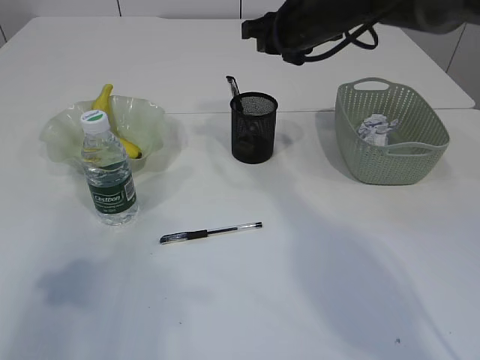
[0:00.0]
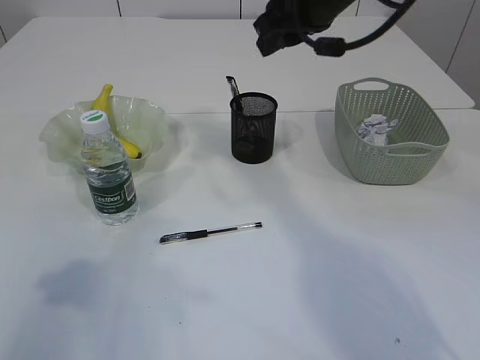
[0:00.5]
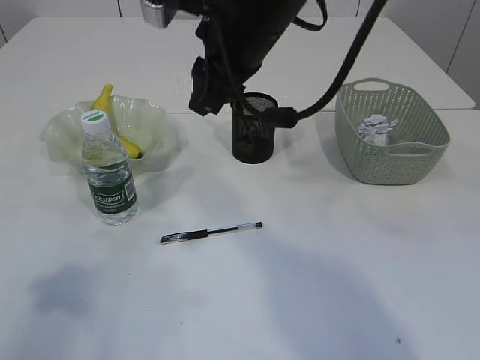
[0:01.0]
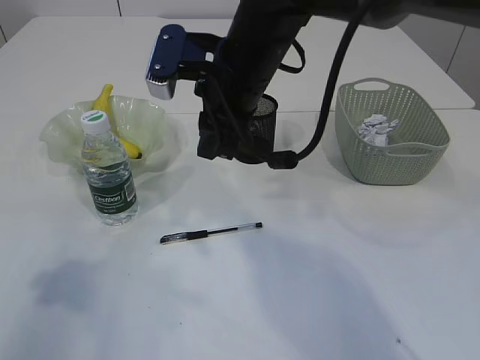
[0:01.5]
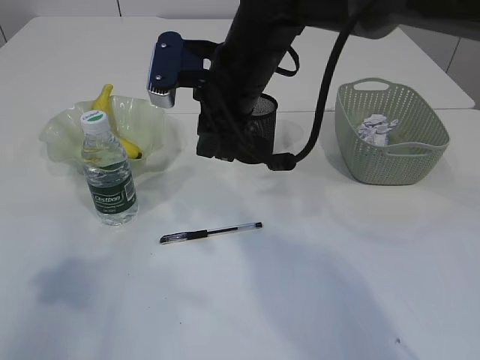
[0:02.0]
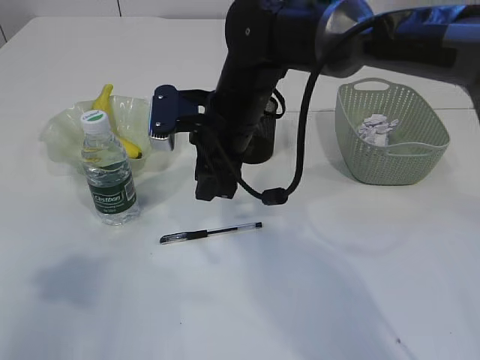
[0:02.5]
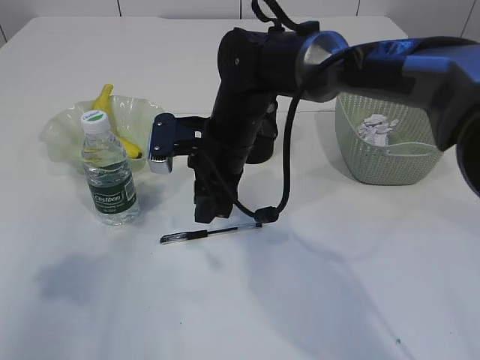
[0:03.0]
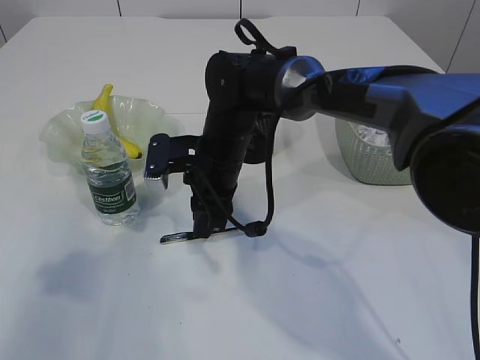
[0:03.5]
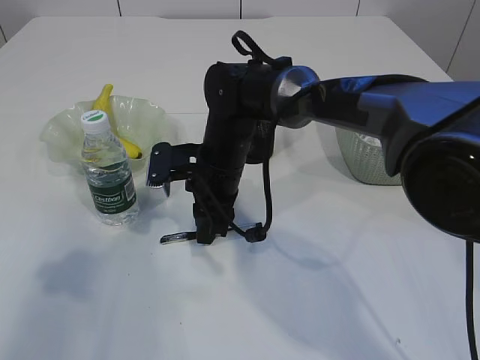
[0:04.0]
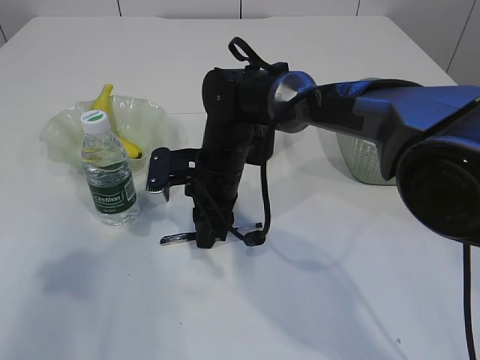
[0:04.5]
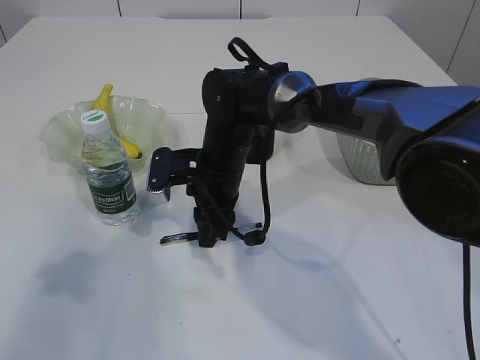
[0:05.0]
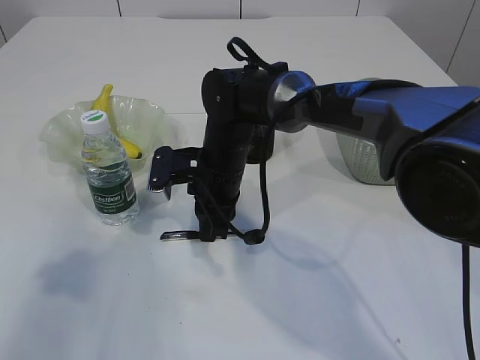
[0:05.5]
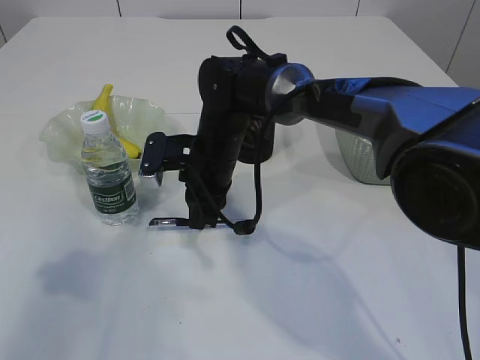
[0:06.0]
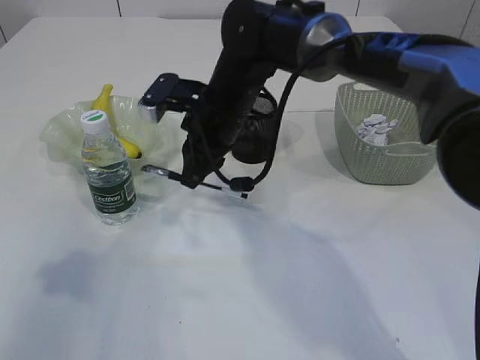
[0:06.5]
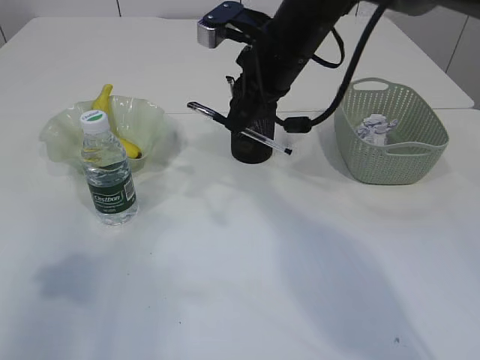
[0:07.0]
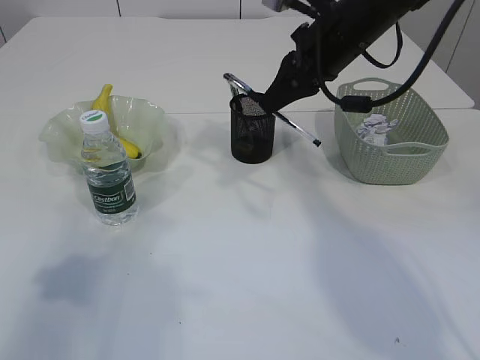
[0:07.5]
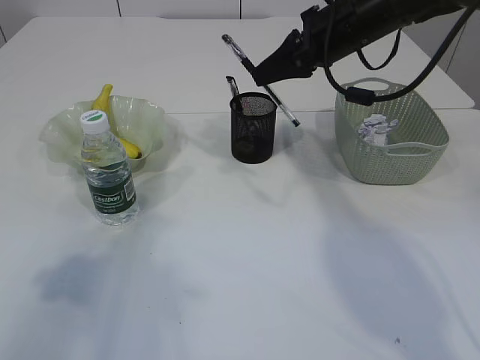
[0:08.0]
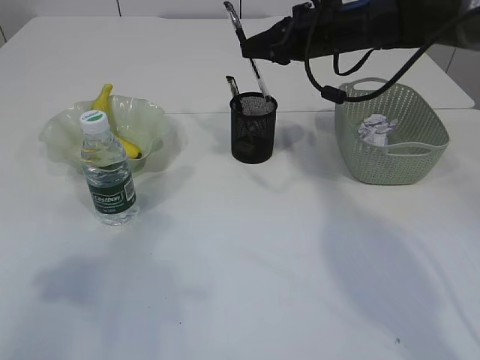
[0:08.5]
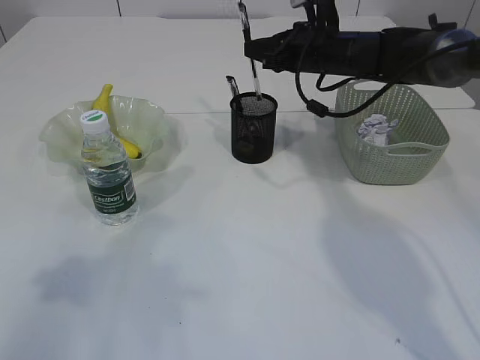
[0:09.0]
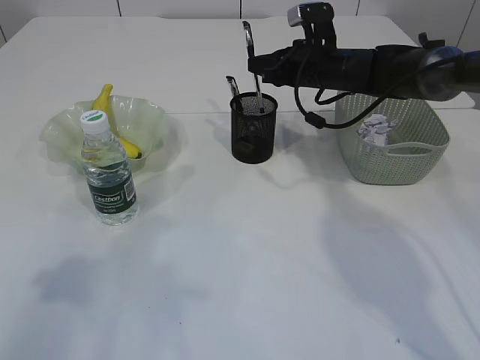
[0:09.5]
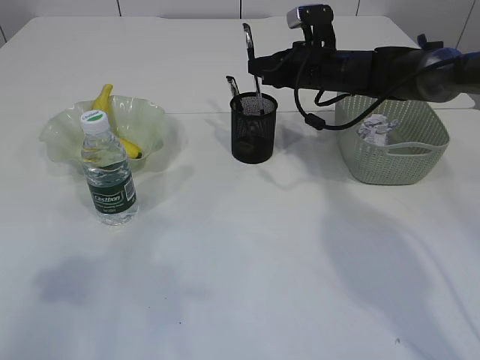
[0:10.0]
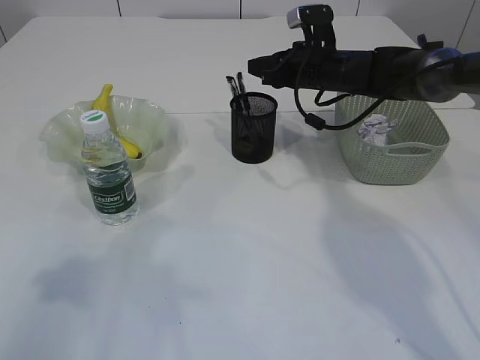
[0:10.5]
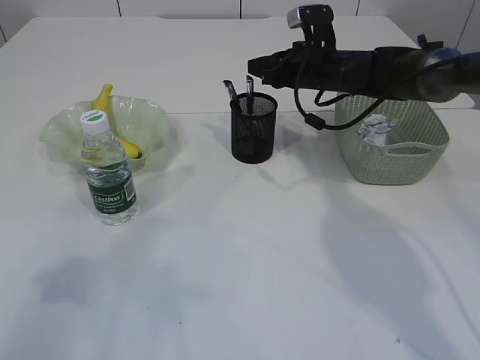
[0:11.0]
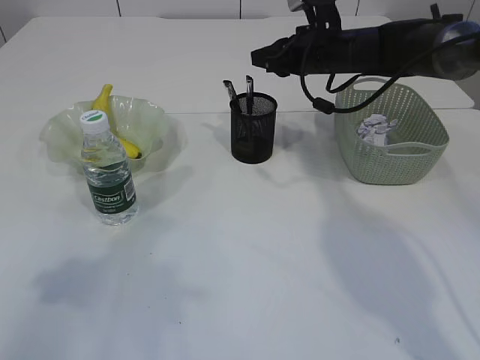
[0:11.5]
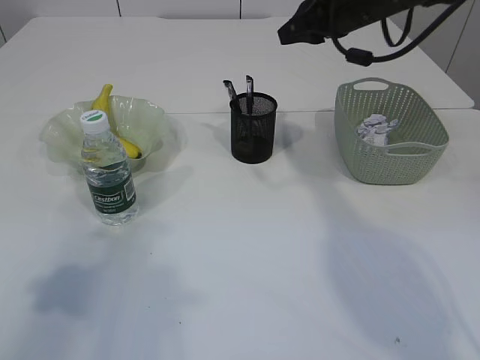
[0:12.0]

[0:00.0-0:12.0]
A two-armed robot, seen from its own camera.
Step, 0:00.0 to 0:06.5: Pick up the pen with right arm.
Step, 0:07.0 to 0:11.5: Place the pen into the pen holder.
0:00.0 to 0:02.0: The right gripper travels backward and to the left by approximately 15 cm.
0:02.0 to 0:04.0: The right gripper shifts roughly 10 cm downward.
0:04.0 to 0:06.0: The right gripper closes its fingers.
0:06.0 to 0:08.0: The right gripper moves to the right and upward, some 20 cm.
0:08.0 to 0:10.0: The right gripper shifts roughly 15 cm downward and forward.
0:10.0 to 0:12.0: The right gripper shifts roughly 10 cm upward.

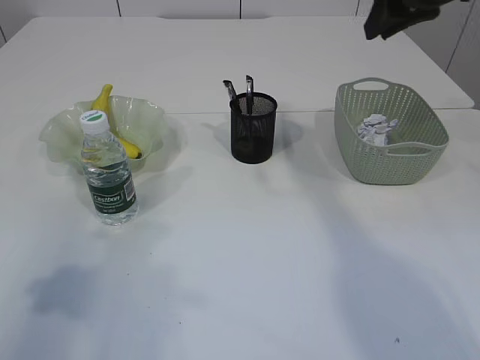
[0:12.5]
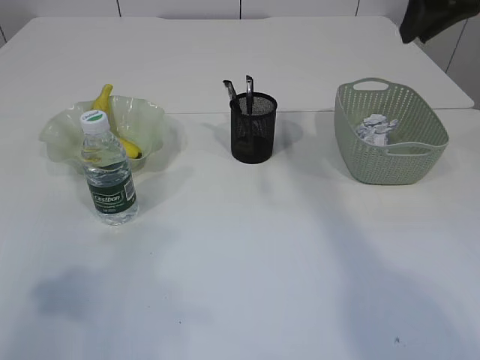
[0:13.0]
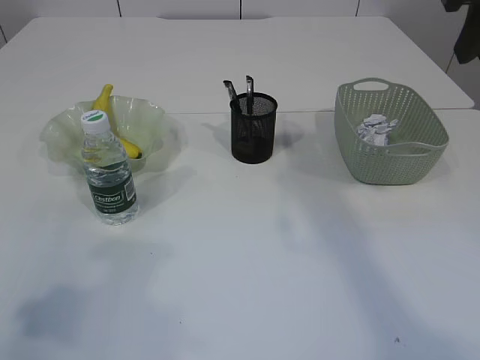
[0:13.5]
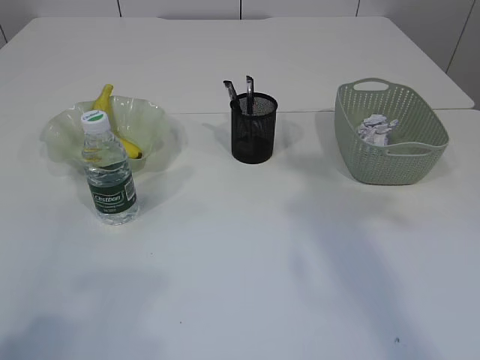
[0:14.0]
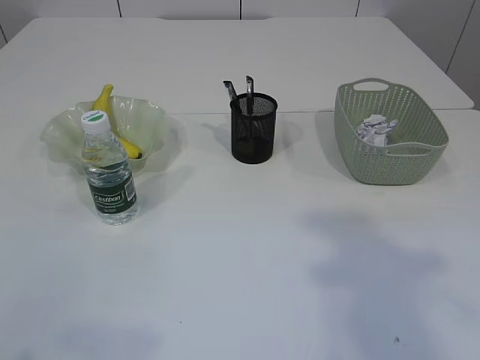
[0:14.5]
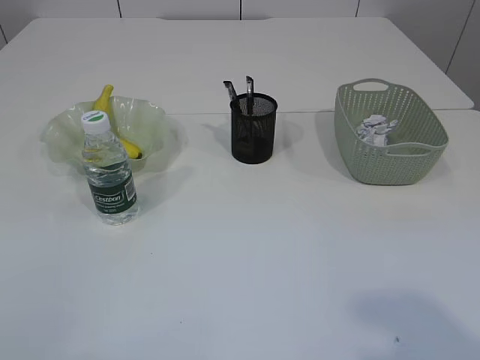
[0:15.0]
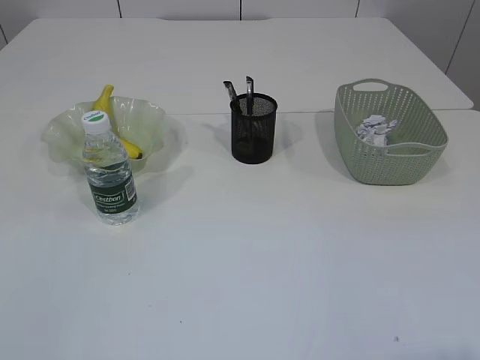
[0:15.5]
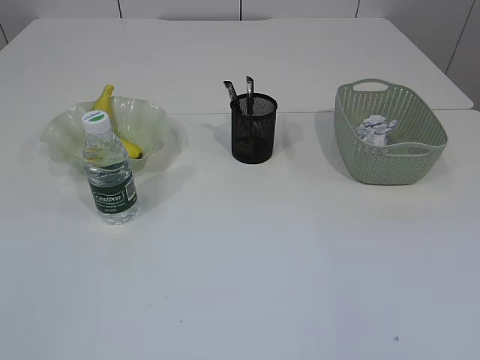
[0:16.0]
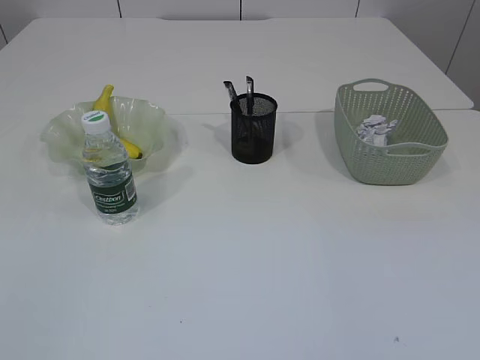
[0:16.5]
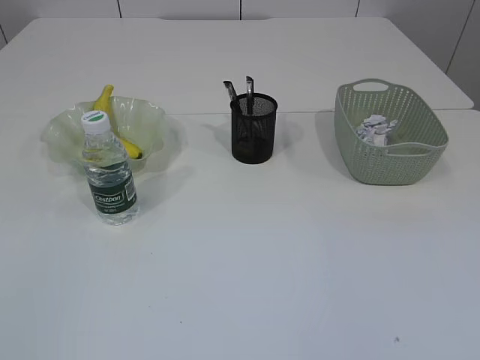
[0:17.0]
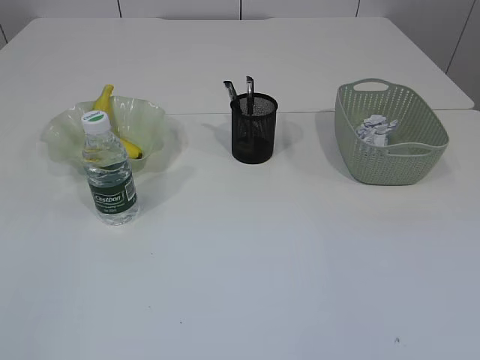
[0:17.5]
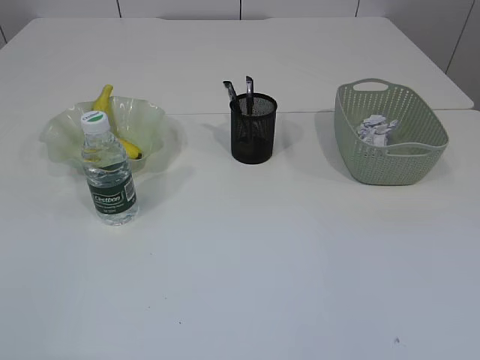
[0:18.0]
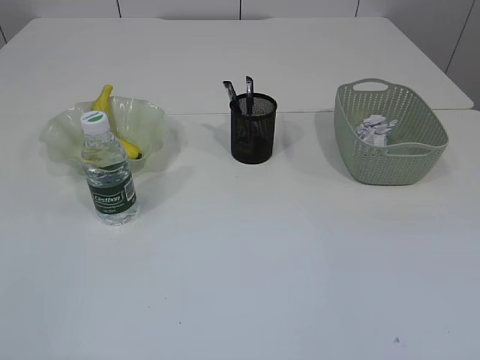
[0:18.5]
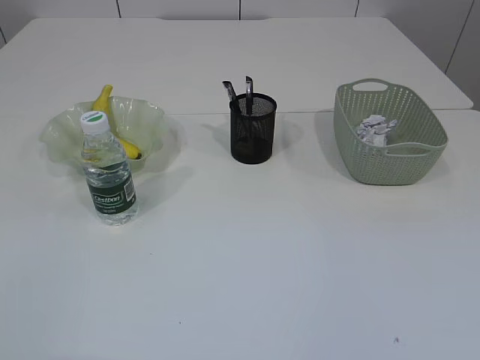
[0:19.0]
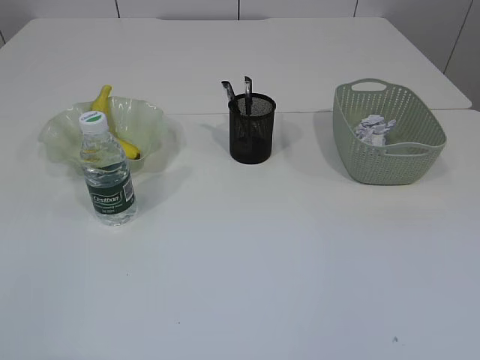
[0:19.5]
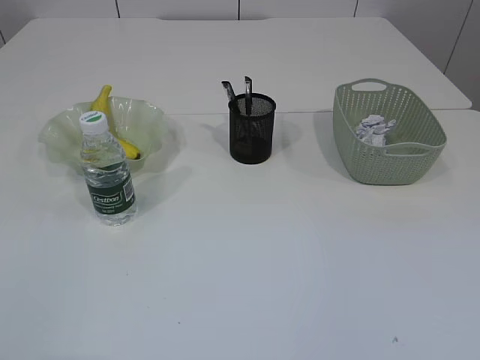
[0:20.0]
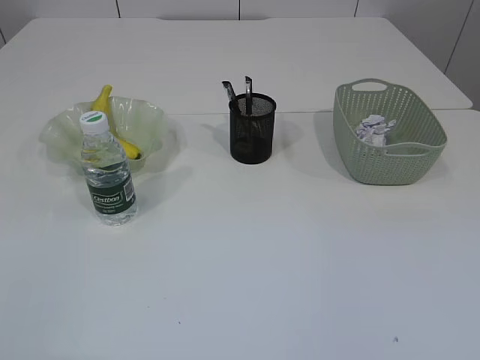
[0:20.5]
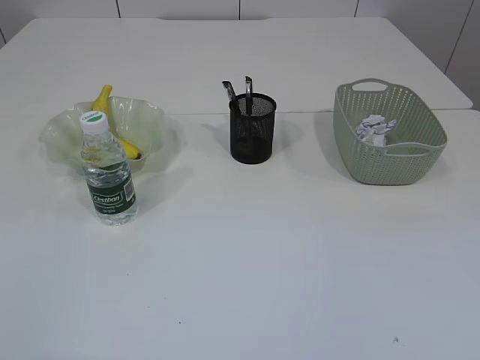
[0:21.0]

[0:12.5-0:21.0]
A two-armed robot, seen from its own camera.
0:12.5 to 0:14.5: The right gripper heads backward, covering approximately 30 cm, while the left gripper travels backward by some 15 cm.

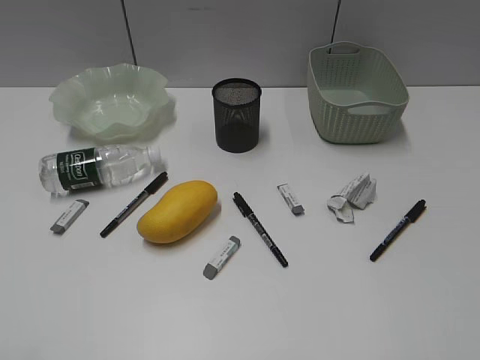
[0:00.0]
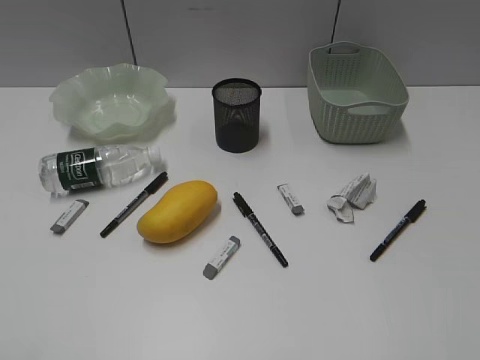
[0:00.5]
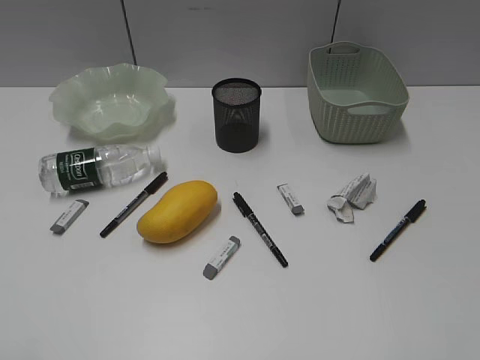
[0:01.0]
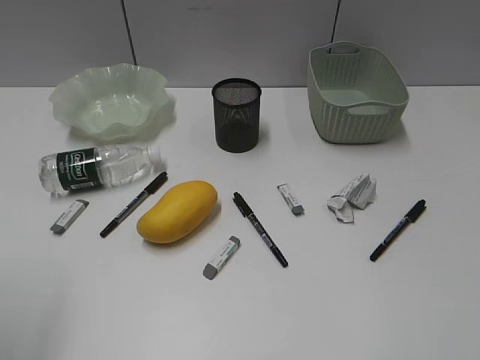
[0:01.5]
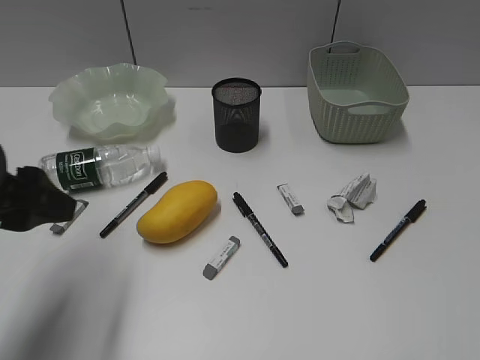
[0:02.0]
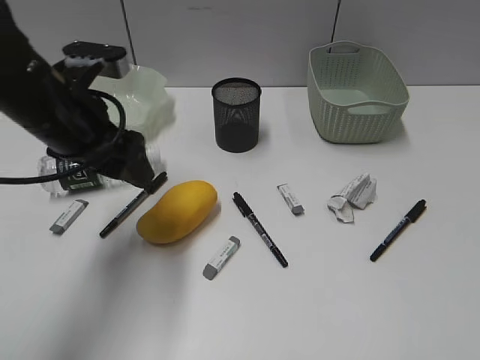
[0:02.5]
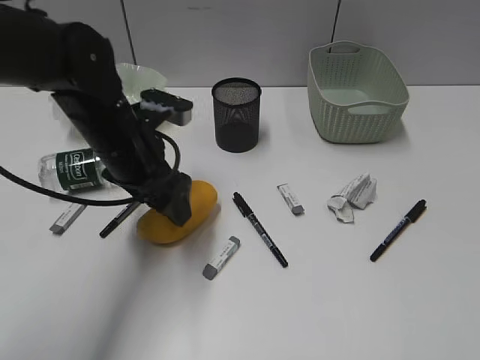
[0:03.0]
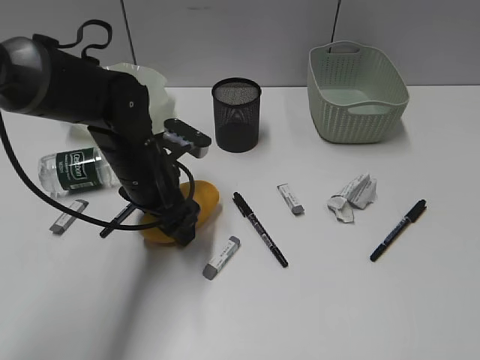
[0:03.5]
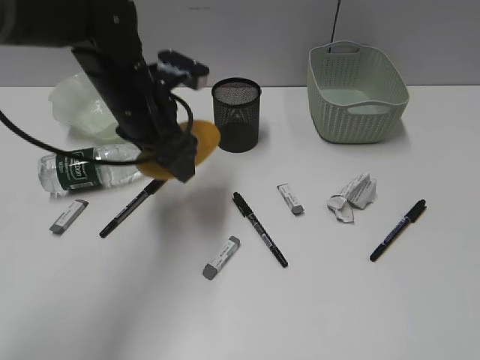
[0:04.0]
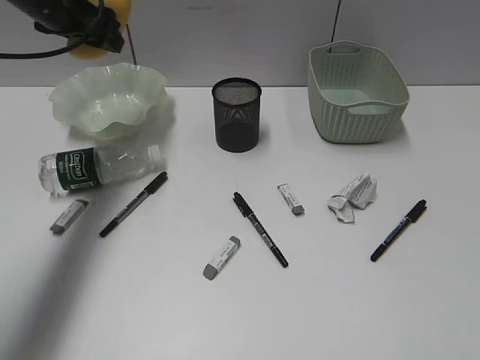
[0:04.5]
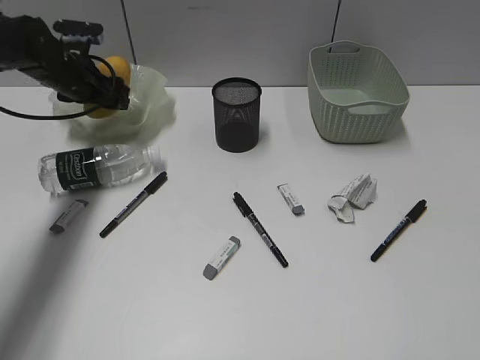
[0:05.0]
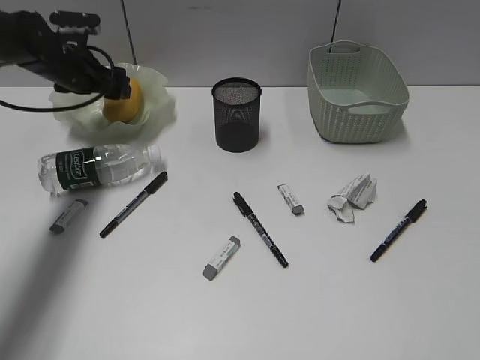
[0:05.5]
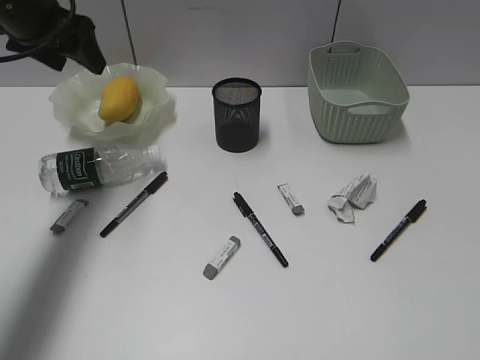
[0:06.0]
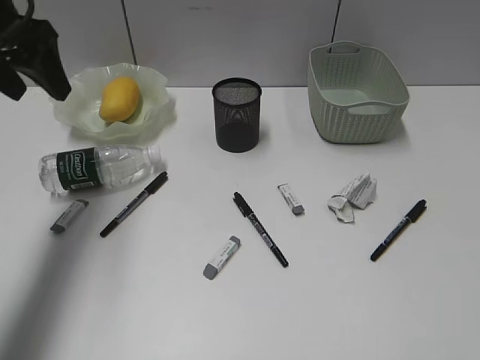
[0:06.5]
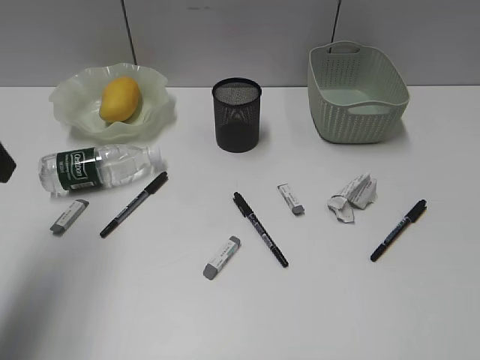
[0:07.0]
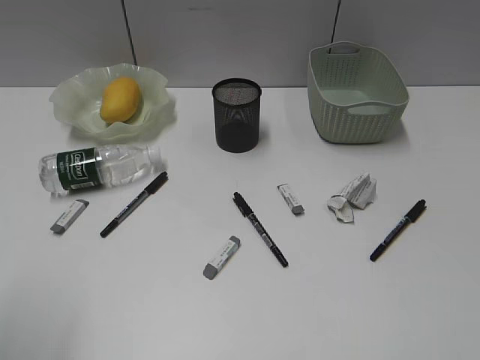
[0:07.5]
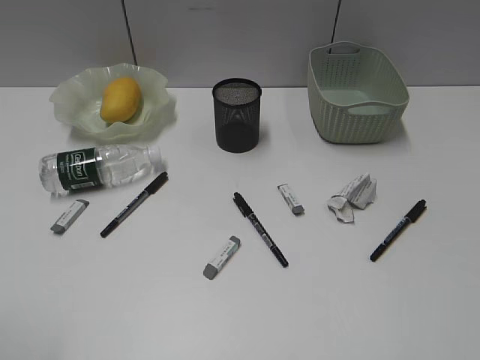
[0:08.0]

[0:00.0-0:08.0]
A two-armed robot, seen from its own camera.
Step, 0:02.0 to 0:03.5: Grasp the mango with left gripper.
Step, 0:04.0 to 0:05.5: Place the mango in the plate with left gripper.
0:02.0 to 0:04.0: The left gripper travels forward and to the right by some 20 cm.
0:04.0 to 0:06.0: The left gripper is displaced to the left, upward and forward by some 15 cm.
0:06.0 to 0:08.0: The left gripper moves backward, about 40 cm.
